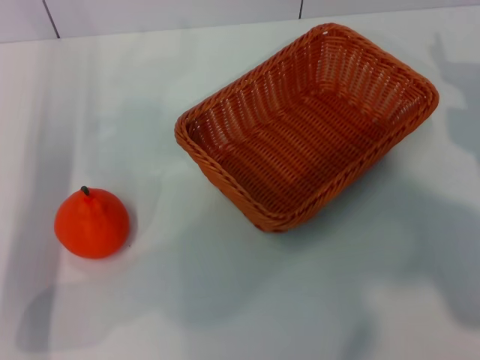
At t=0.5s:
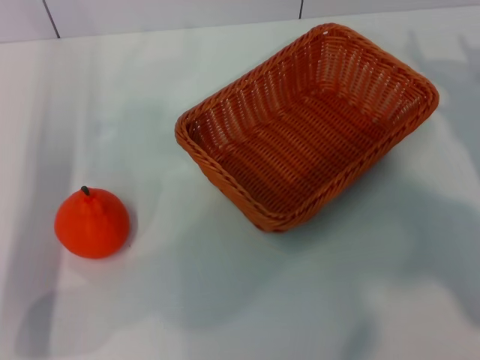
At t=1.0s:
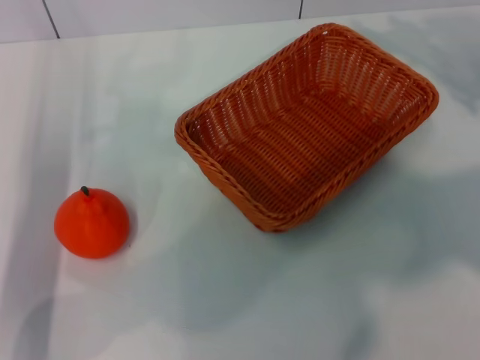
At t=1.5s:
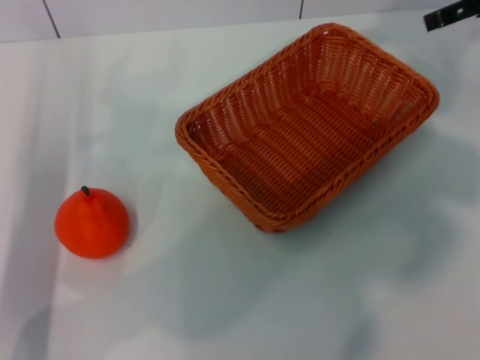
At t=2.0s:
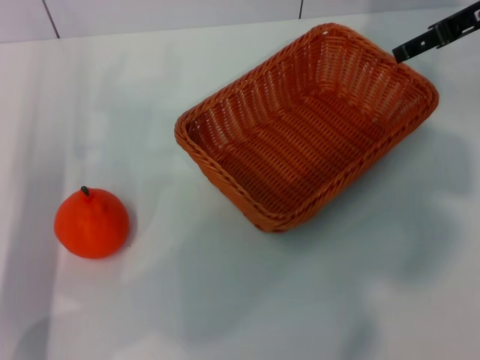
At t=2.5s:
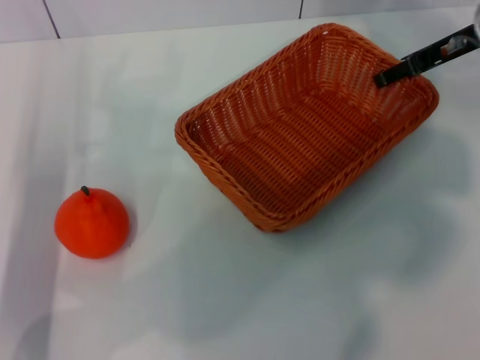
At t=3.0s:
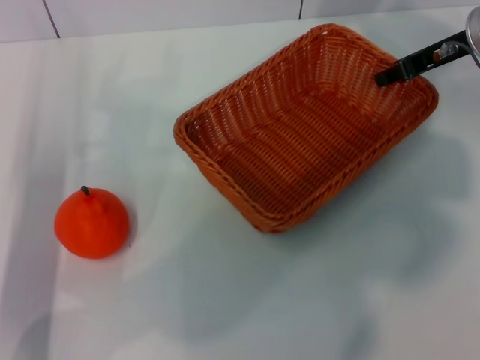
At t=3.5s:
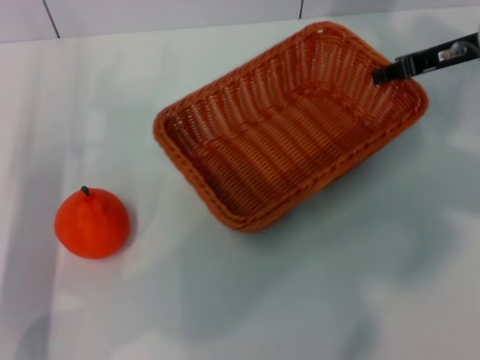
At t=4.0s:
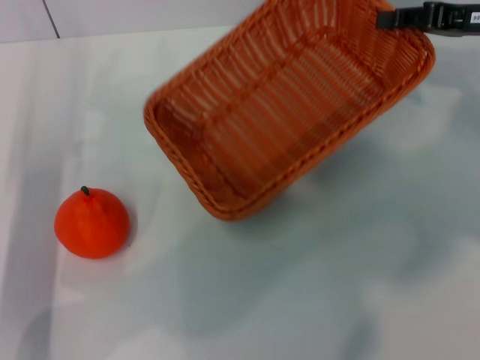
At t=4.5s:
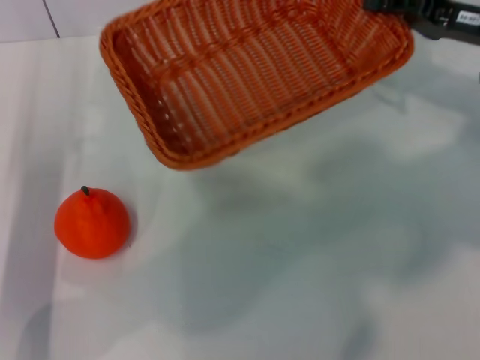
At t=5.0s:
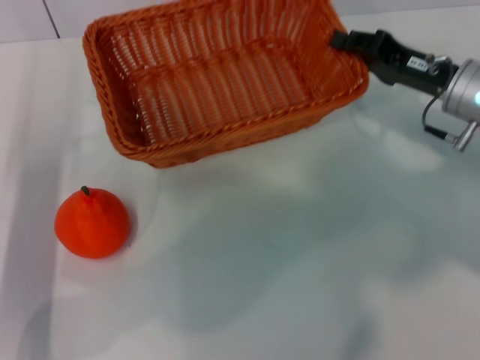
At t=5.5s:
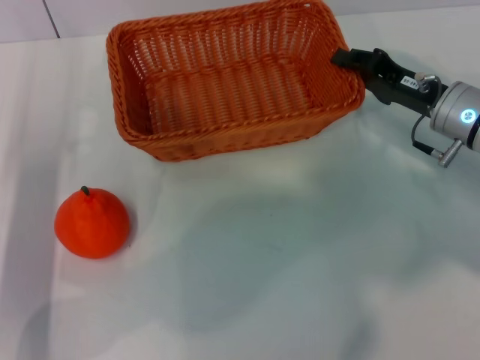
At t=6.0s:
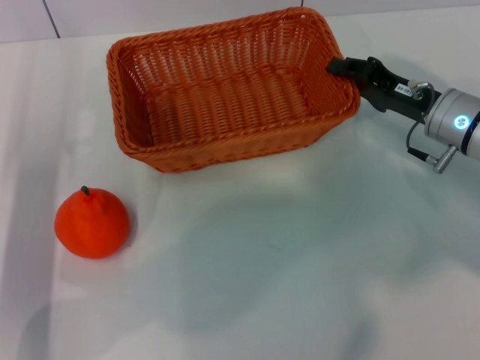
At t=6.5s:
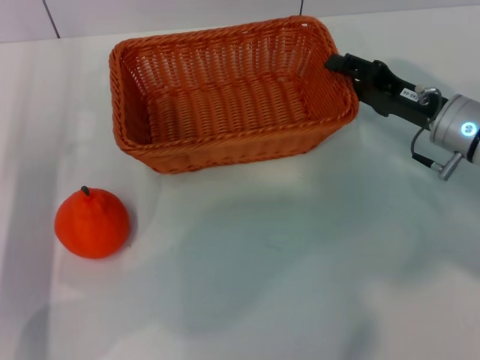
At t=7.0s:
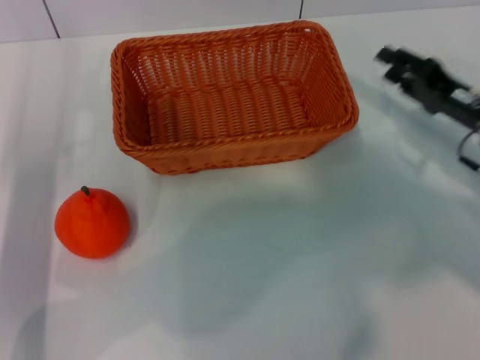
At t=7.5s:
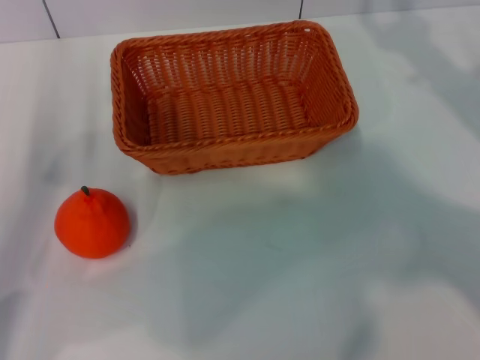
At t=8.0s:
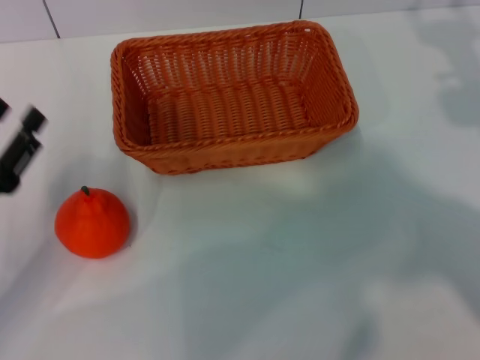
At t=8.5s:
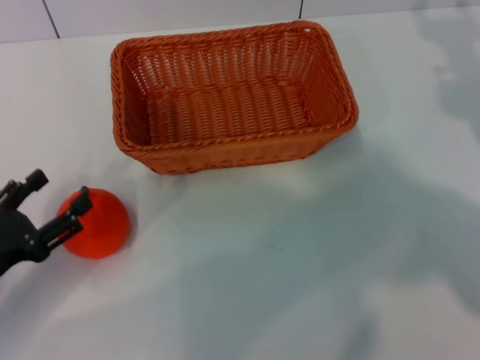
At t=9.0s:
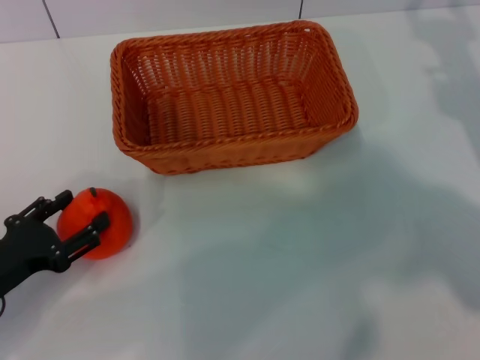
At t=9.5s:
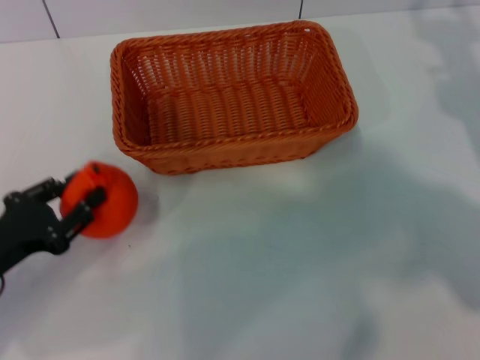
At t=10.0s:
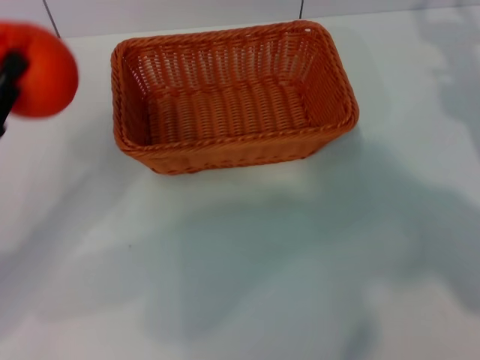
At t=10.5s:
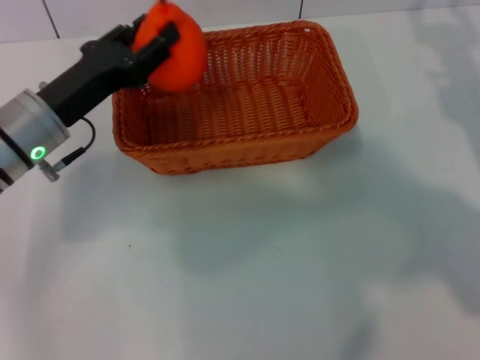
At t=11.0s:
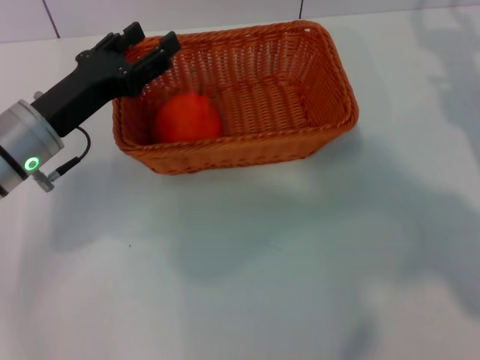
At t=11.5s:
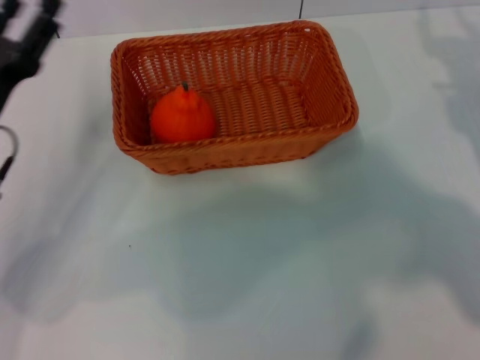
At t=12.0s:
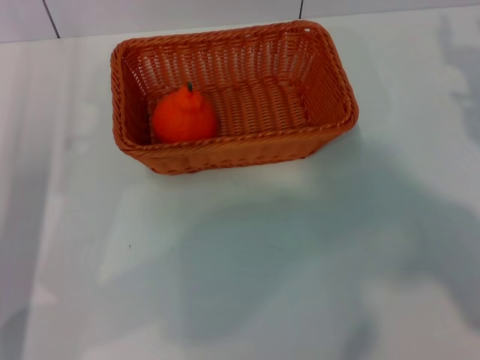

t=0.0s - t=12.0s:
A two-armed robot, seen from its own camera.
Task of the whole recording: the right gripper pick up the yellow basket and place it horizontally in the middle of the table, the left gripper pick up the orange and place it into the yellow basket.
Step, t=0.0s - t=3.5s: Pick up the light basket with the right gripper.
Step, t=4.0s - t=6.5s: Place the light basket in the center of view with the right gripper.
Step, t=7.0s - t=9.5s: Pick up the orange with the left gripper.
Step, t=10.0s - t=10.5s: Place the orange into the light basket with the left gripper.
t=0.0s - t=2.0s: The right gripper moves upward and forward, about 20 cm.
t=2.0s - t=4.0s: The right gripper changes place by roughly 5 cm, and closes up.
t=4.0s - t=6.0s: The right gripper goes roughly 15 cm downward and to the left.
t=6.0s - t=8.0s: The right gripper heads to the right, upward and backward, covering roughly 15 cm, and opens up. The left gripper shifts some 5 cm backward.
t=8.0s - t=10.0s: The left gripper closes.
t=10.0s - t=12.0s: The left gripper travels to the right and back again, some 10 cm each way, and opens.
